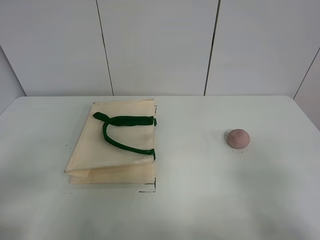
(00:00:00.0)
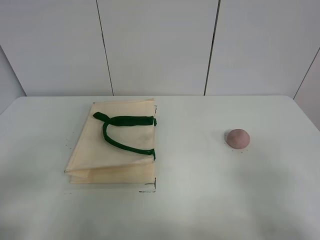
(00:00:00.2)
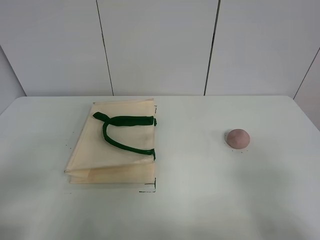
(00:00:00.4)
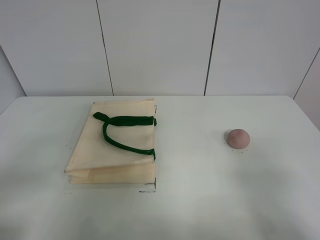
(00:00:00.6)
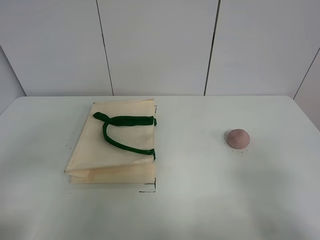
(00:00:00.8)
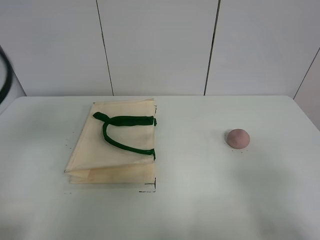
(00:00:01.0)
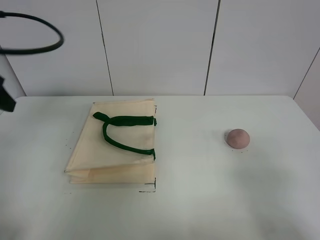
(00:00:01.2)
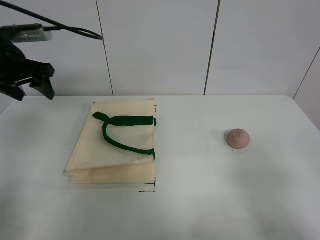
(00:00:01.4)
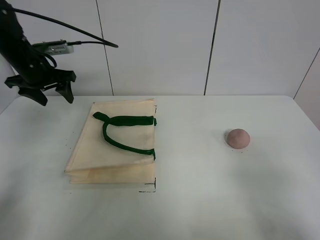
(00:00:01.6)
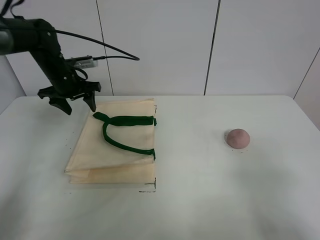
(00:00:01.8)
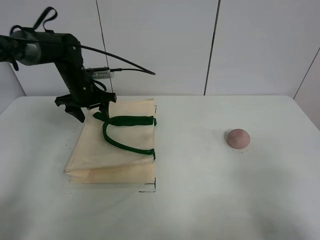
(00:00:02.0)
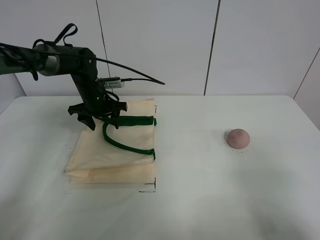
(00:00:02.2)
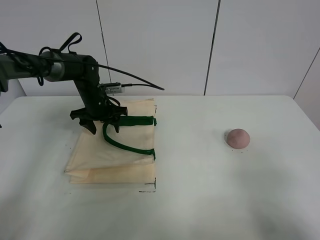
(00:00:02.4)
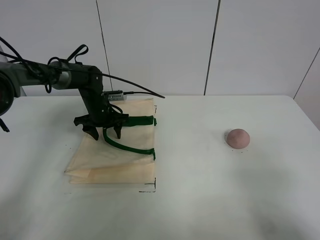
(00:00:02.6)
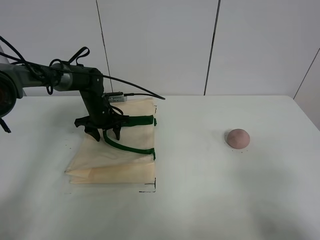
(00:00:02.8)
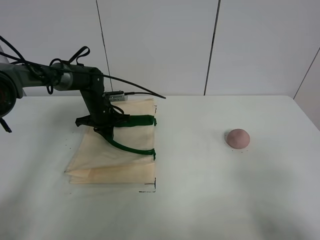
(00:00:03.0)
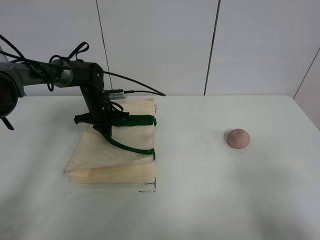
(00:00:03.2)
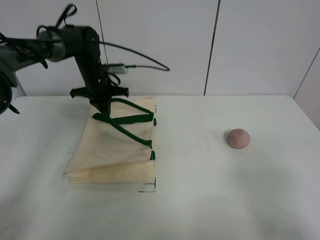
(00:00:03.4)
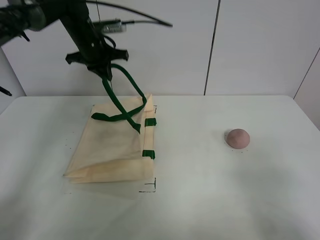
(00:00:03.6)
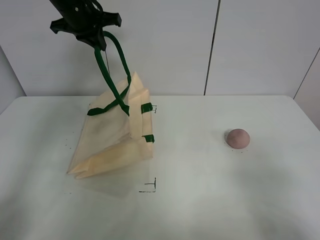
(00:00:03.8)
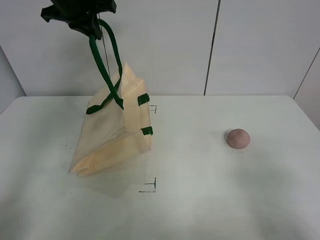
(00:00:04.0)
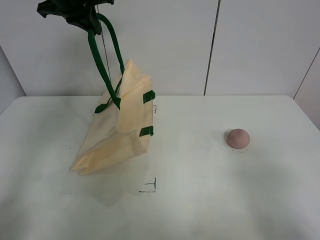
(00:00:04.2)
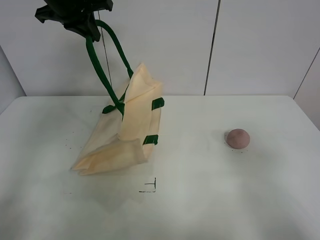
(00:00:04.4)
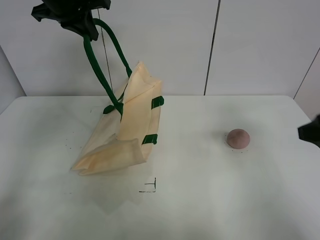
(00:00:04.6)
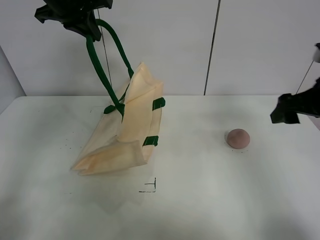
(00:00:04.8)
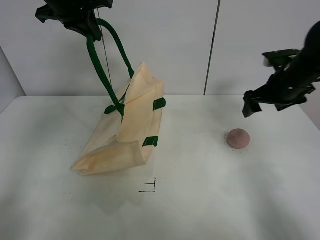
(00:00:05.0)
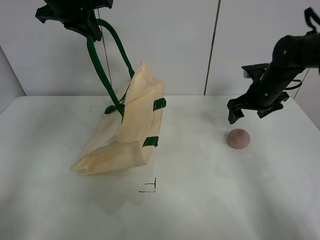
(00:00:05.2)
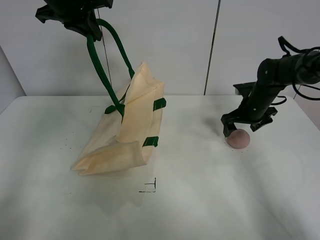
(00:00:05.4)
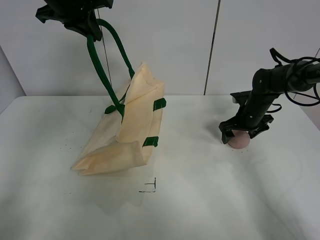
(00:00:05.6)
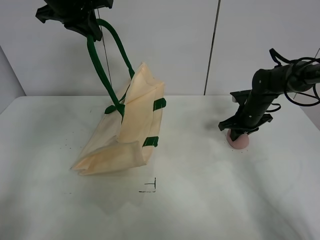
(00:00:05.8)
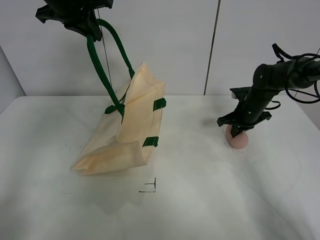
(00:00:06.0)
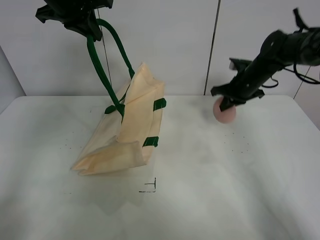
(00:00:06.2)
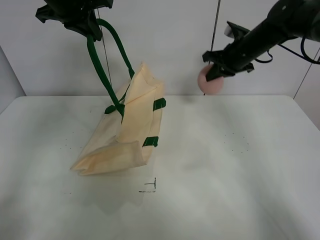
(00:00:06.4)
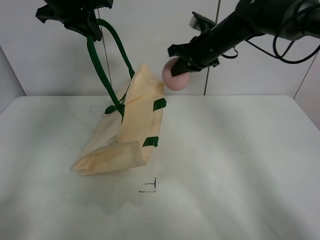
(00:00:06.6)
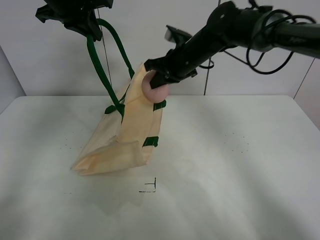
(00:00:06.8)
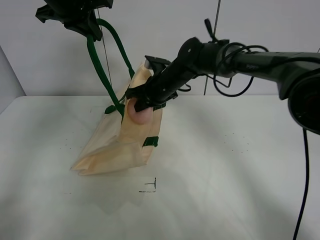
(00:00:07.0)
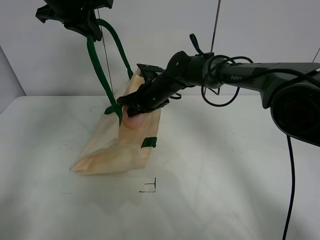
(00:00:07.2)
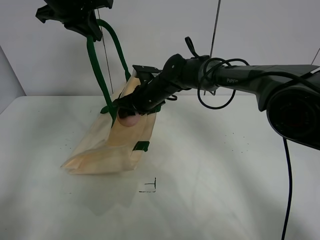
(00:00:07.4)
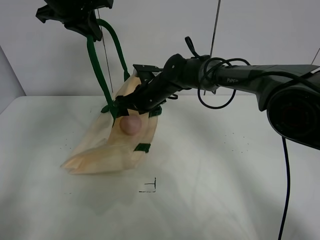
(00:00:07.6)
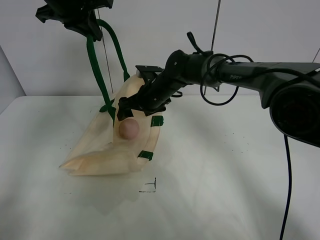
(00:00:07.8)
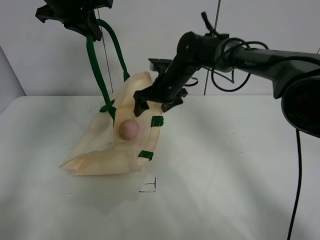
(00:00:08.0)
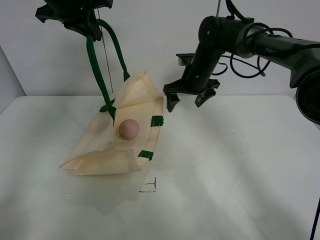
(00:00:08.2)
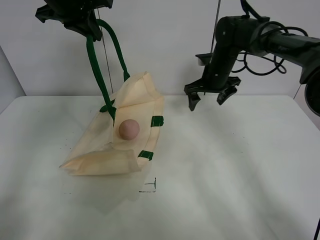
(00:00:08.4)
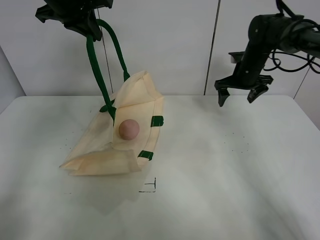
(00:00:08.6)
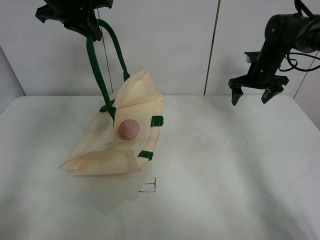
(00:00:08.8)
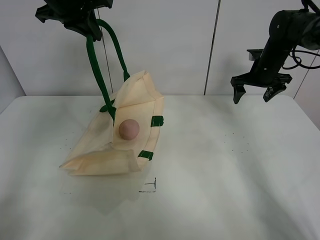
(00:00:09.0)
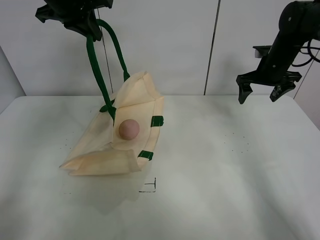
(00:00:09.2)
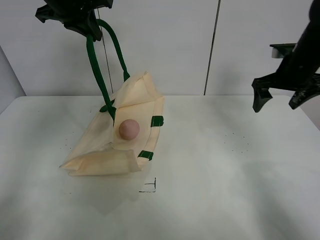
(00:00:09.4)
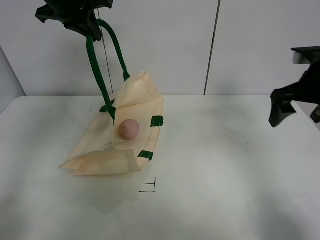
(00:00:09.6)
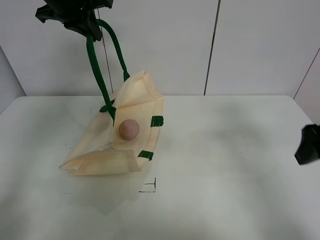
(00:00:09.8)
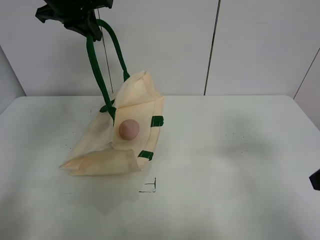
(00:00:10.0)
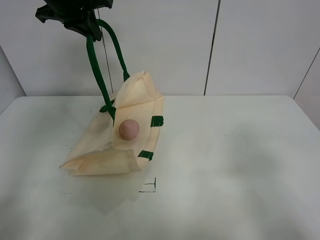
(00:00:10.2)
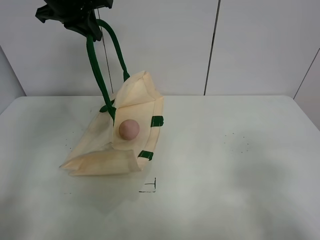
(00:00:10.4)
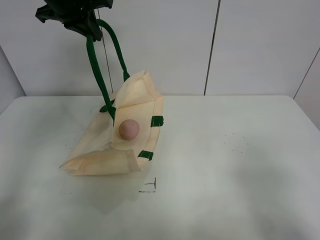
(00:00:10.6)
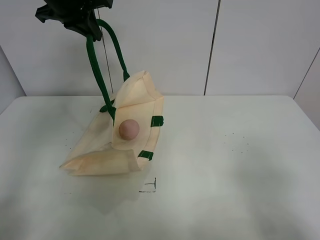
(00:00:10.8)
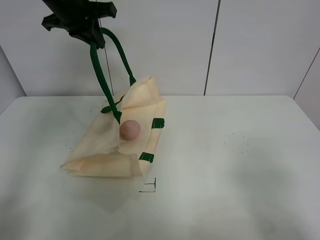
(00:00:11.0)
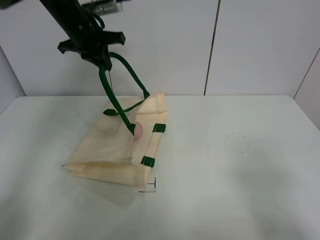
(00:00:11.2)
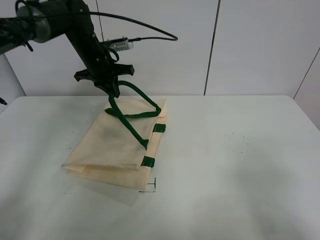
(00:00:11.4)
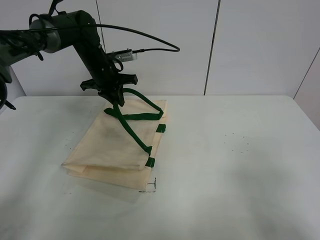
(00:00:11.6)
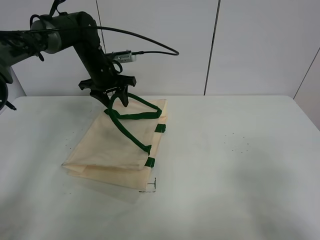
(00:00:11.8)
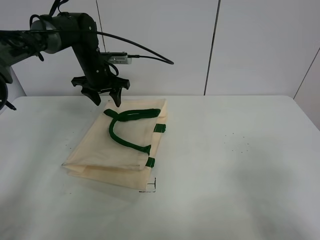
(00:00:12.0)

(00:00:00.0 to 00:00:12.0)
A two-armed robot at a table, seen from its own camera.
Task of the whole recording: open the white linen bag and put the peach in the bag.
Step, 00:00:00.0 - 00:00:04.0: Lift the handbag with left gripper.
Step, 00:00:04.2 - 00:00:06.0: Grasp the peach with right gripper.
Step, 00:00:06.2 - 00:00:07.6: Place the peach in the handbag with right gripper.
Step, 00:00:07.8 - 00:00:12.0: Put down the handbag with left gripper.
00:00:00.0 - 00:00:01.6: The left gripper is displaced forward by approximately 40 cm.
00:00:01.6 - 00:00:03.0: The left gripper moves downward and to the right, some 20 cm, and closes its fingers.
00:00:03.0 - 00:00:04.4: The right gripper heads forward, covering roughly 5 cm. Meanwhile the left gripper heads upward, covering roughly 30 cm.
00:00:04.4 - 00:00:06.0: The right gripper heads forward and downward, covering some 40 cm, and closes.
00:00:06.0 - 00:00:07.6: The right gripper heads to the left, covering about 25 cm, and opens its fingers.
00:00:07.6 - 00:00:09.0: The right gripper is displaced to the right by roughly 30 cm.
00:00:09.0 - 00:00:10.4: The right gripper heads backward, covering approximately 40 cm.
00:00:10.4 - 00:00:12.0: The left gripper moves downward and forward, some 20 cm, and opens.

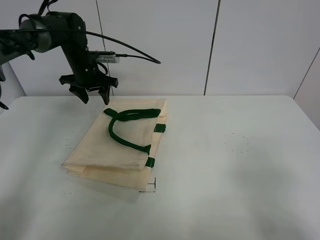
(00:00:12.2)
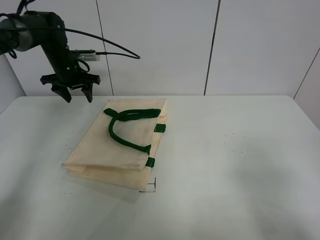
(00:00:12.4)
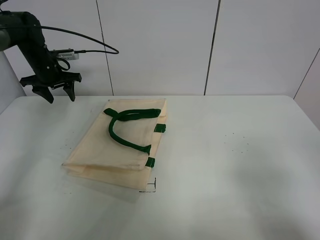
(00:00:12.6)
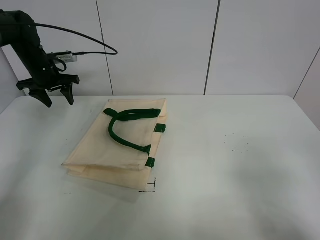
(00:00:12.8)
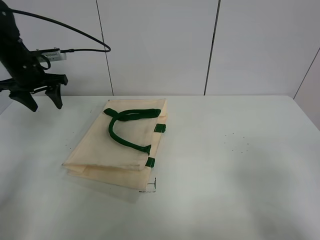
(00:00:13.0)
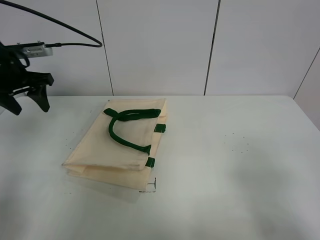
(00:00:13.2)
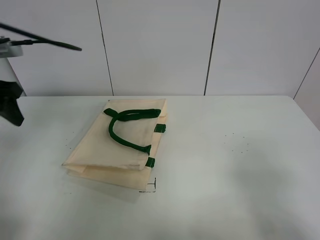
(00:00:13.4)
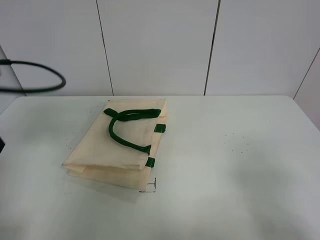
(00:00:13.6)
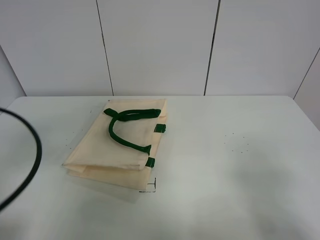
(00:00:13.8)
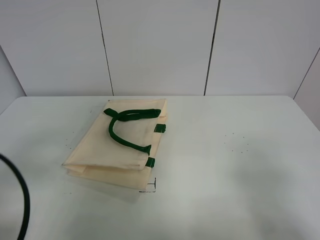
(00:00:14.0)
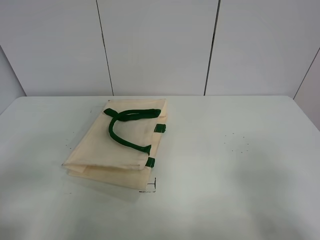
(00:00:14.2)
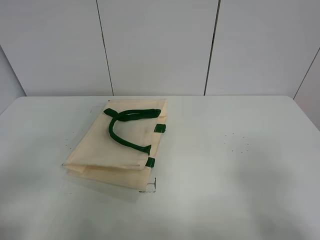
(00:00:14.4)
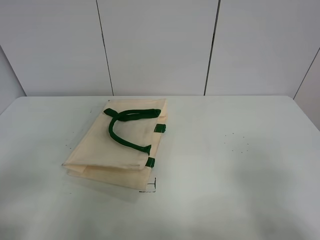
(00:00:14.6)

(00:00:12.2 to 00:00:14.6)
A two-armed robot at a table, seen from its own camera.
Task of the whole recording: open the white linen bag and put the peach in the bag.
00:00:12.2 - 00:00:13.4: The left gripper travels backward and upward by roughly 25 cm.
00:00:13.4 - 00:00:14.6: The left gripper heads backward, covering roughly 25 cm.
